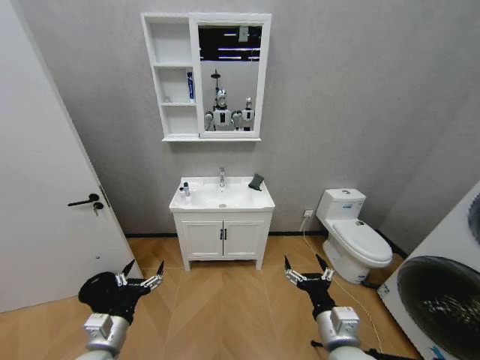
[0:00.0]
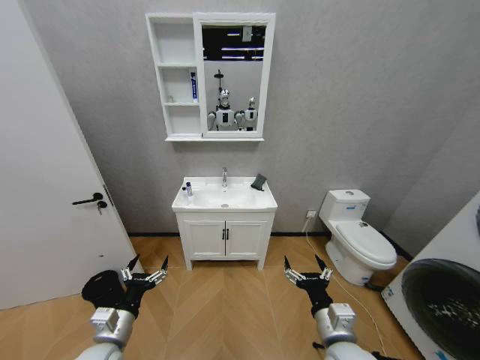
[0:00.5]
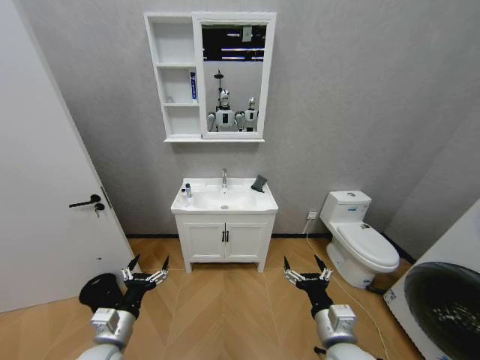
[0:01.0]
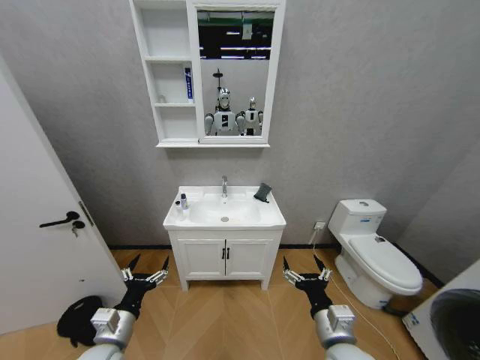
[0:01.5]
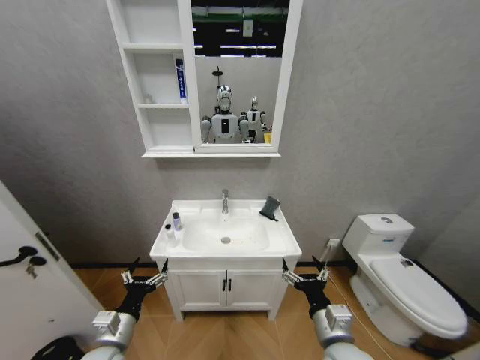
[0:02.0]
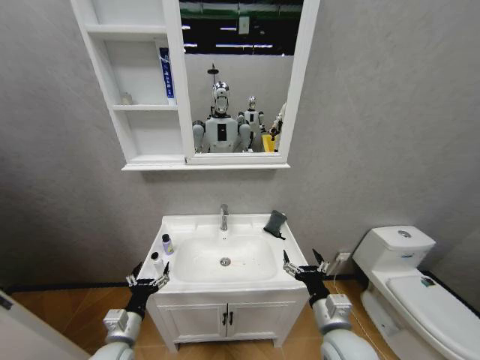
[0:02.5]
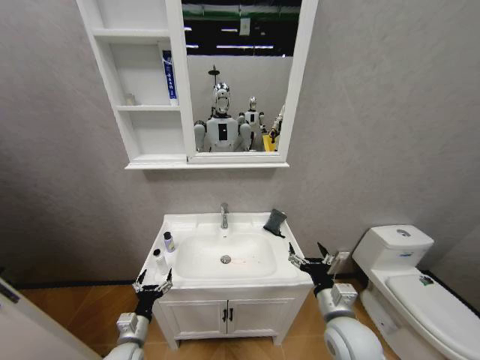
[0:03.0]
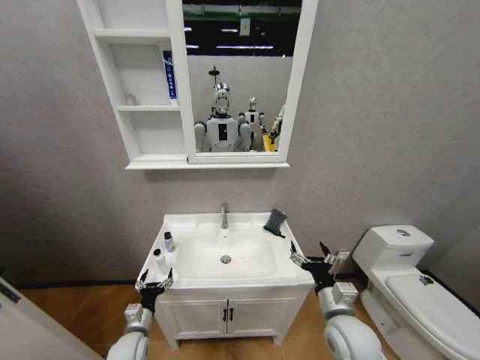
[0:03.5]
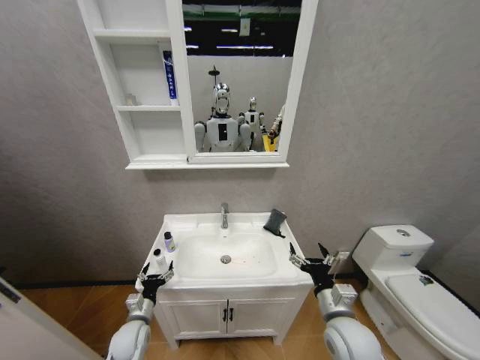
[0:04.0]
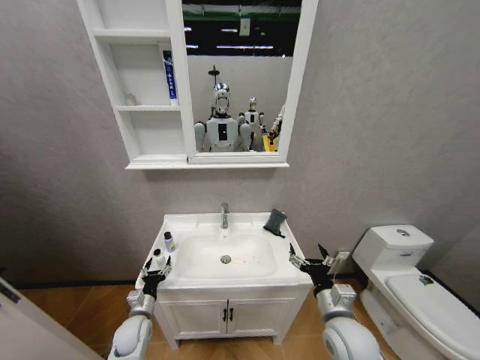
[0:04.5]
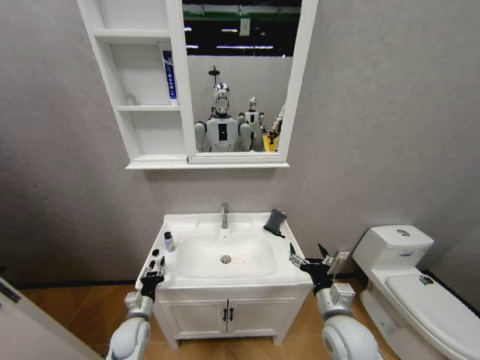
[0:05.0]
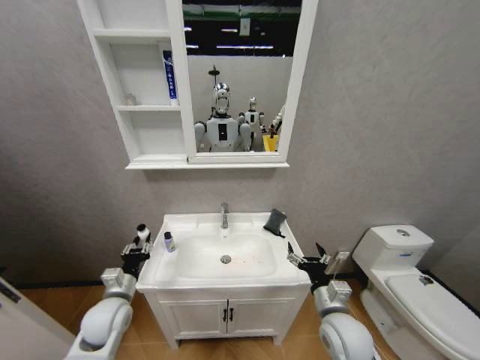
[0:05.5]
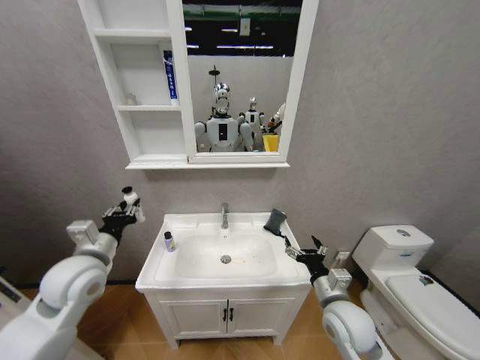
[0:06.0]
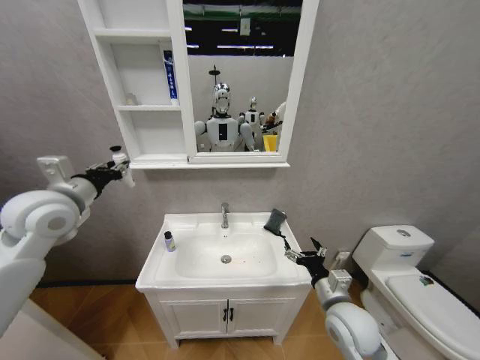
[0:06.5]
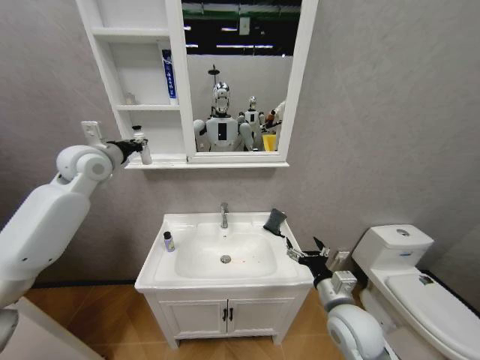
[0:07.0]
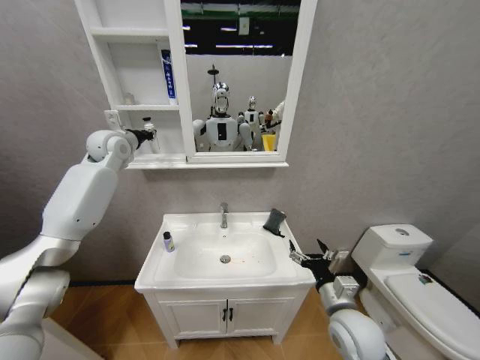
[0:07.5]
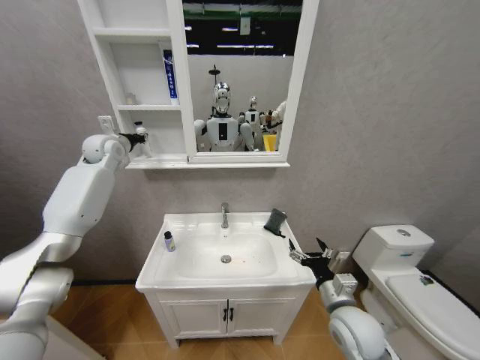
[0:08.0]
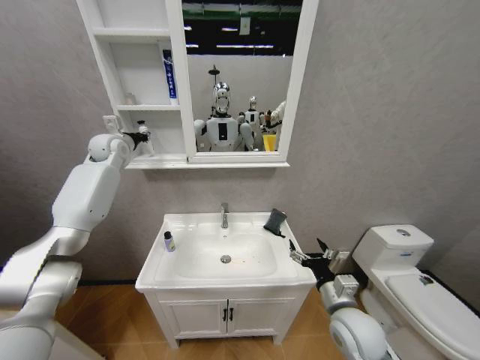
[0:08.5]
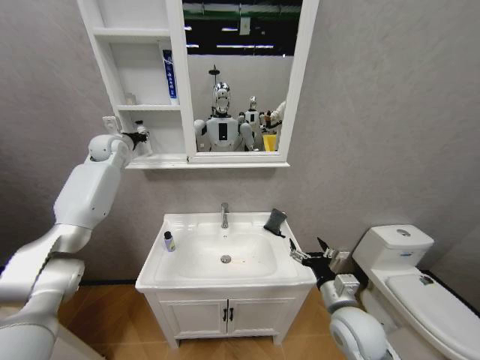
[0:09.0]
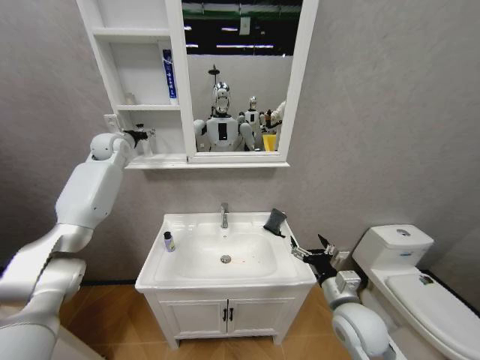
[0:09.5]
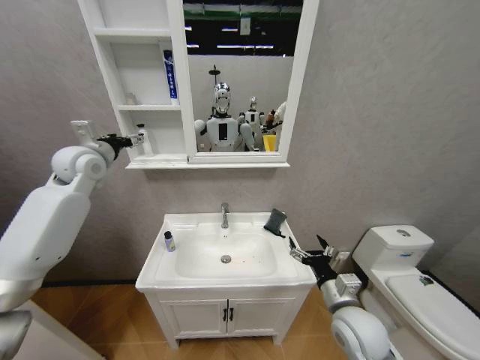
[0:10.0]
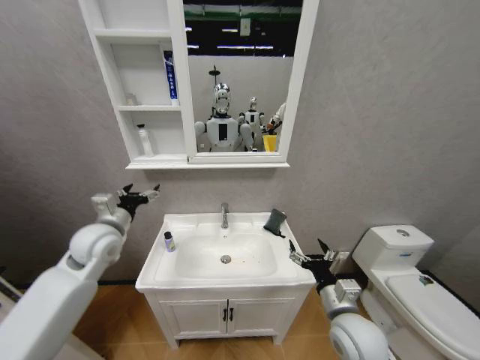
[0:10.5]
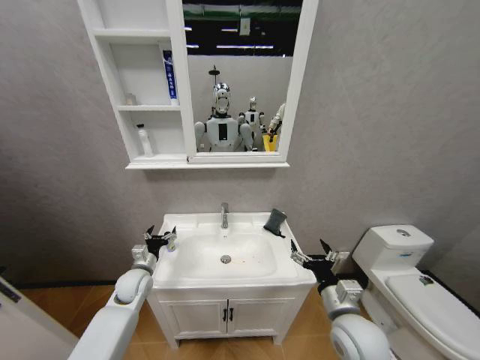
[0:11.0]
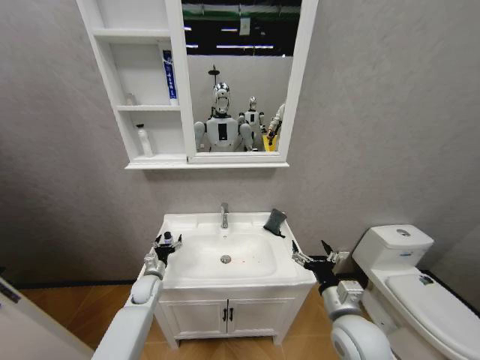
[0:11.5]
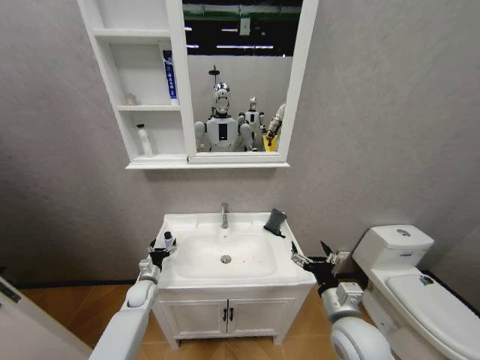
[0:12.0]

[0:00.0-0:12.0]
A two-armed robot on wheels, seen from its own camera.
Task of the whole recording: Move facial cleanser and shampoo from washbasin to cabinet, then wipe washbasin with towel.
0:02.0 to 0:04.0: The left gripper travels downward and forward by about 15 cm; the right gripper shifts by roughly 5 cm.
0:04.0 to 0:06.0: The left gripper travels upward by roughly 30 cm, and closes up.
0:06.0 to 0:08.0: The left gripper goes some 35 cm forward and upward.
0:08.0 to 0:10.0: The left gripper goes approximately 10 cm backward, and opens.
0:10.0 to 0:12.0: The left gripper is displaced downward by roughly 50 cm.

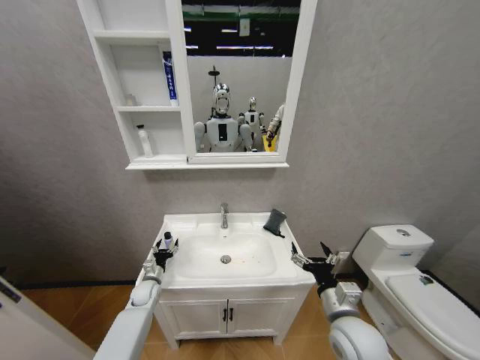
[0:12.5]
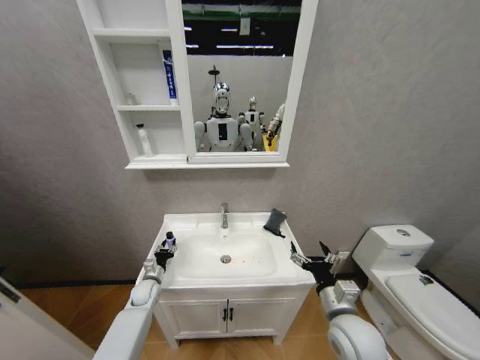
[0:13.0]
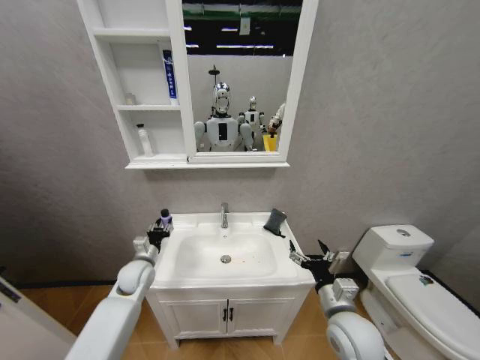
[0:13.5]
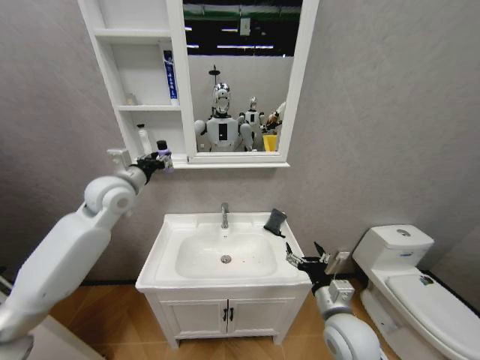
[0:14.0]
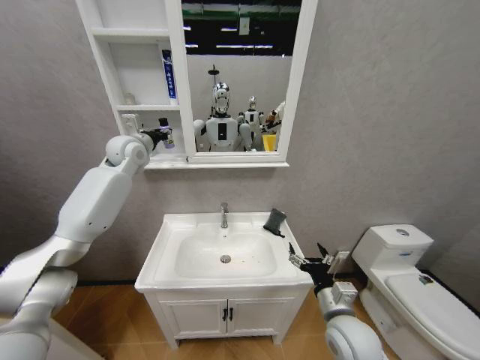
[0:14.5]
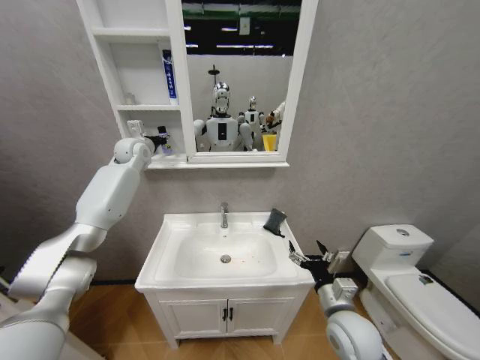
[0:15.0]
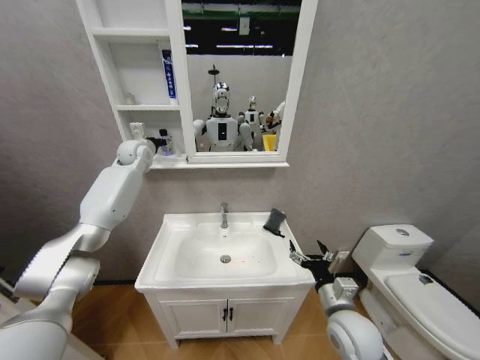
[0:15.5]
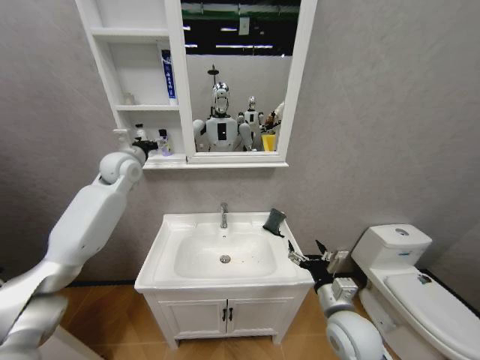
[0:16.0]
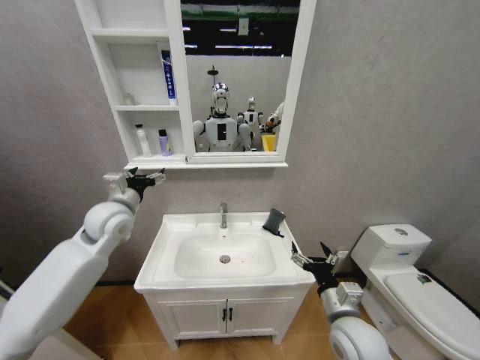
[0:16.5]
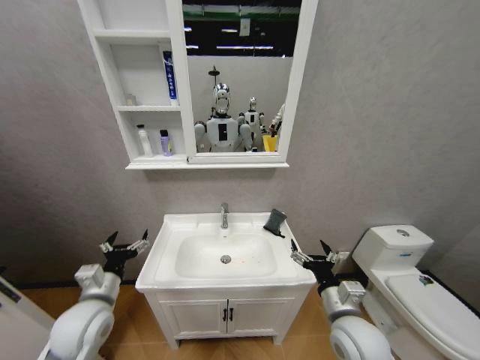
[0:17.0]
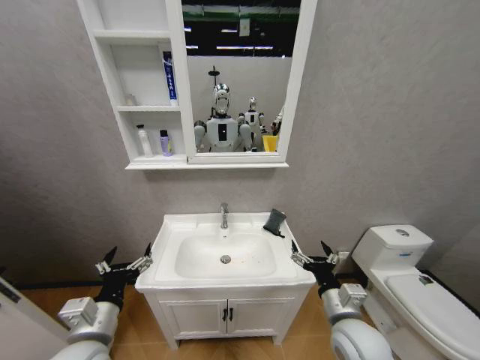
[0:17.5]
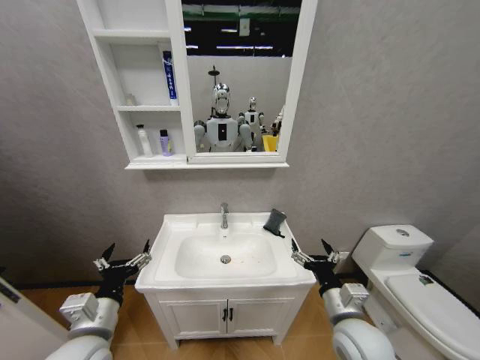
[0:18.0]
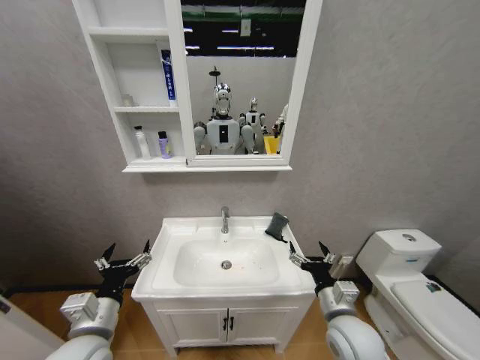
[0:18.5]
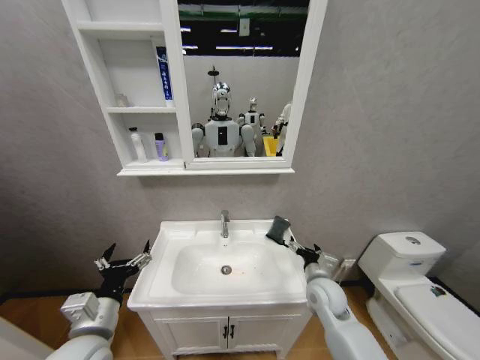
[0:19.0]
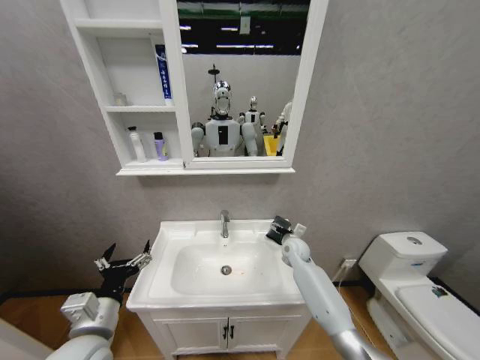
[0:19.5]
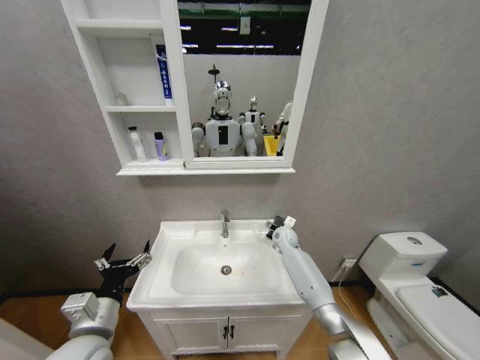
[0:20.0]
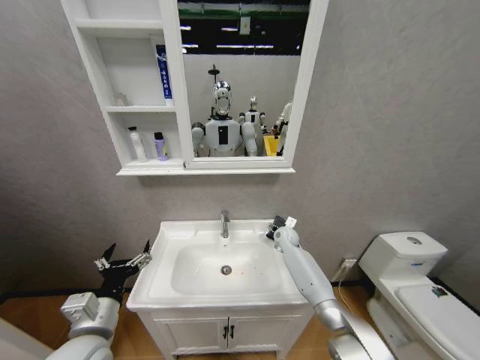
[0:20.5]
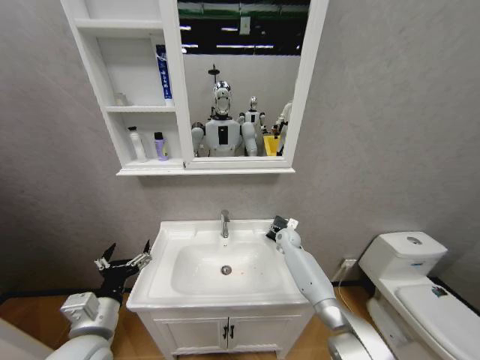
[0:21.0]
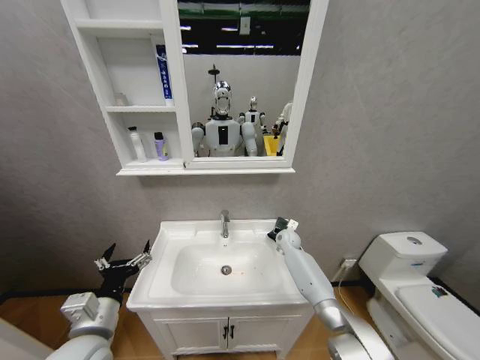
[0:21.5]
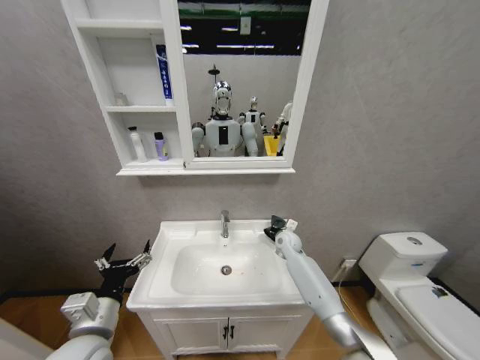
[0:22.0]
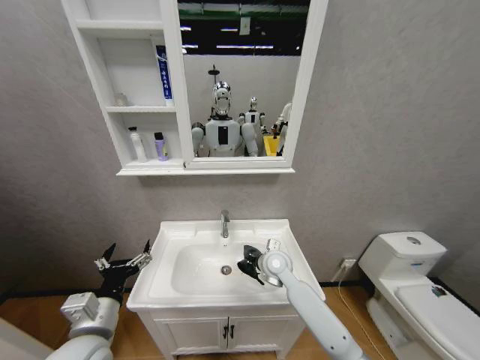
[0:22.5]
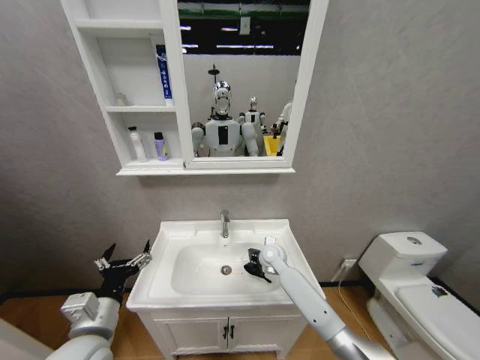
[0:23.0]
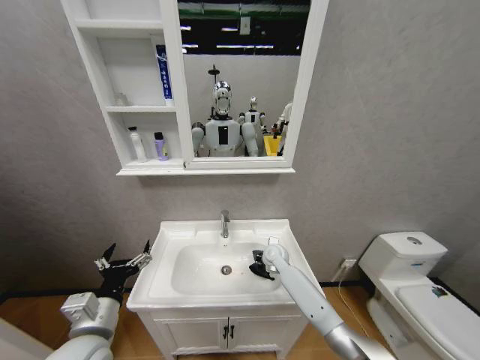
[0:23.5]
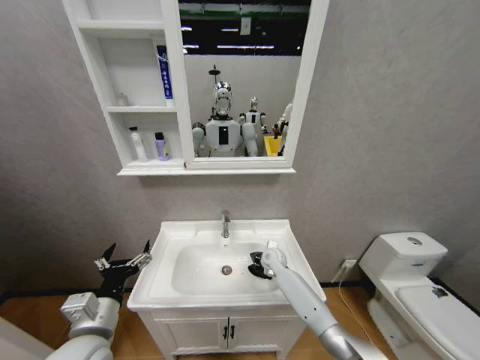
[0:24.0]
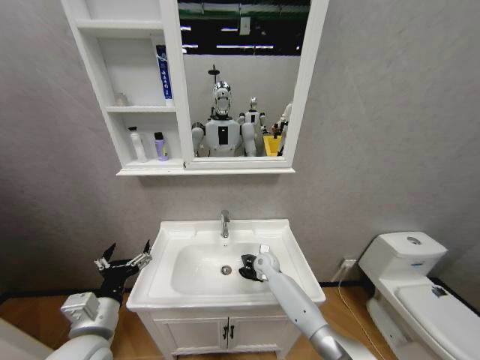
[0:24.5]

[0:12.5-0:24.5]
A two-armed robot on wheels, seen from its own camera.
Task of the whole recording: Move facial cleanser and shampoo from washbasin to cabinet, then wipe washbasin with towel.
0:12.5 to 0:14.5: The left gripper shifts about 50 cm upward, and closes its fingers.
0:14.5 to 0:16.5: The left gripper goes approximately 20 cm backward and downward, and opens its fingers.
0:16.5 to 0:18.5: The left gripper heads backward and downward, covering some 25 cm.
0:18.5 to 0:20.5: The right gripper moves forward, roughly 35 cm.
0:20.5 to 0:22.5: The right gripper heads backward and to the left, covering approximately 15 cm, and closes its fingers.
0:22.5 to 0:24.5: The right gripper moves downward and forward, about 15 cm.

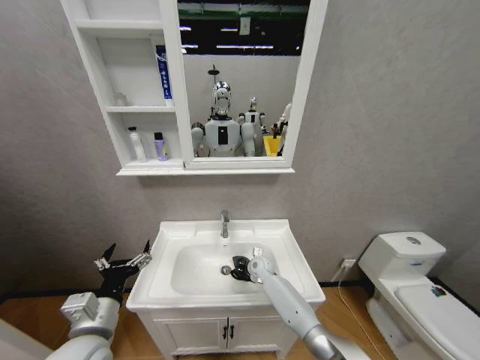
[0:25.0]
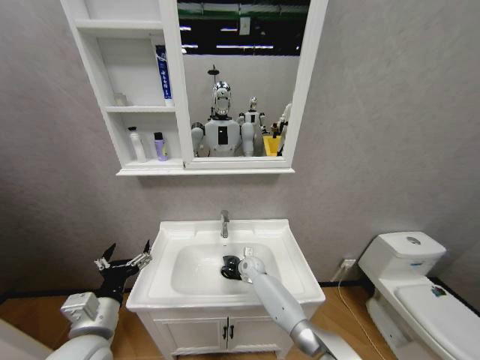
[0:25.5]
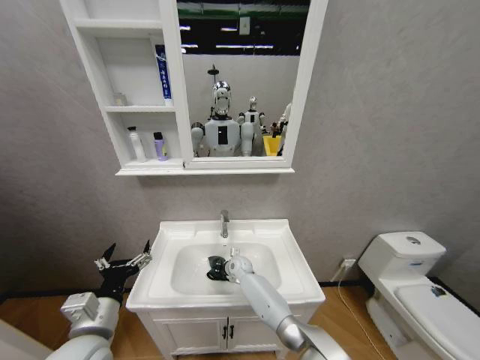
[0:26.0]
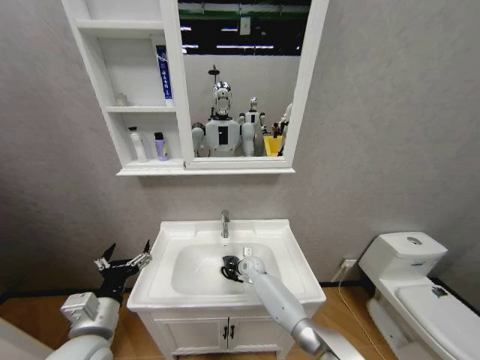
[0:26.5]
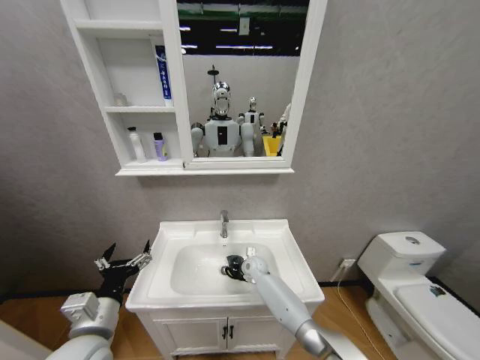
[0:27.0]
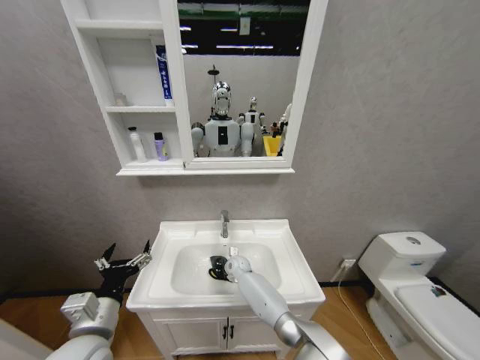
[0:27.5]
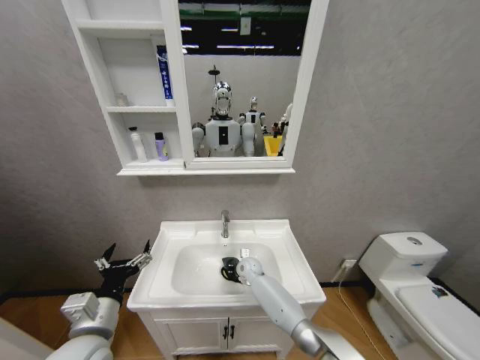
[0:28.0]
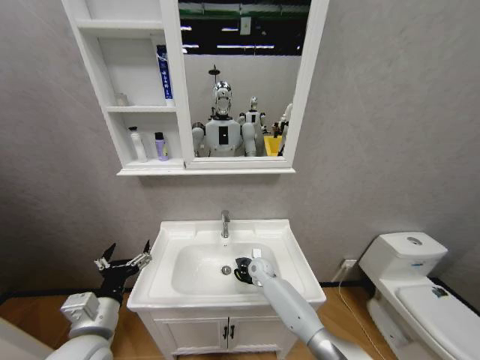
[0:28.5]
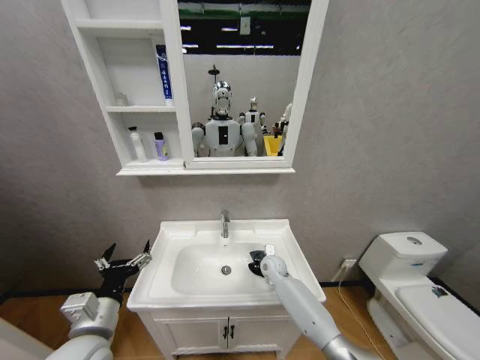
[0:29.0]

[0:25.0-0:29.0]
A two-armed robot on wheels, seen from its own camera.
Task of the whole recording: Move facial cleanser and shampoo from washbasin to cabinet, then wipe washbasin with towel.
0:25.0 to 0:27.0: The right gripper moves roughly 10 cm to the left and comes back.
0:27.0 to 0:29.0: The right gripper shifts about 5 cm to the right.
